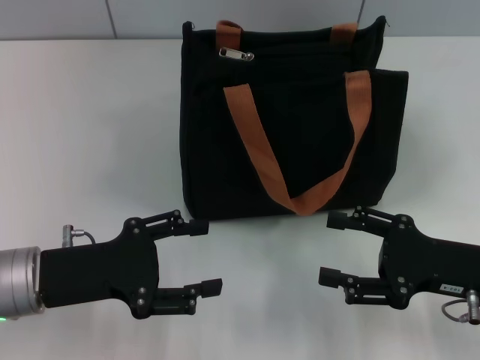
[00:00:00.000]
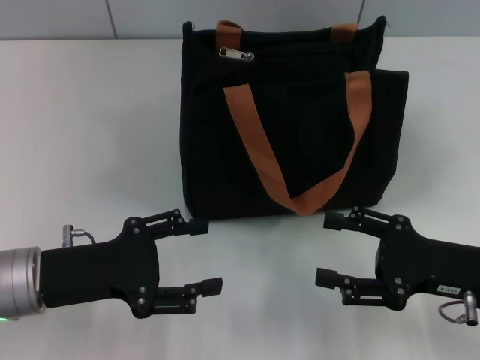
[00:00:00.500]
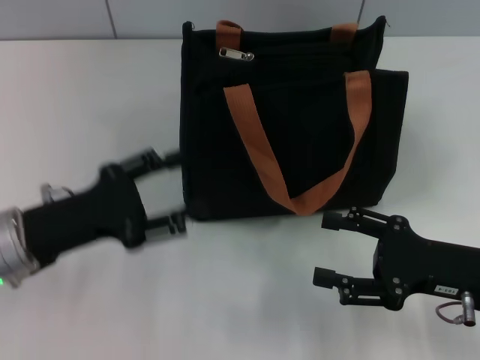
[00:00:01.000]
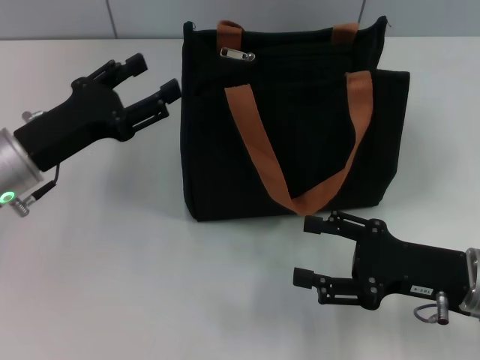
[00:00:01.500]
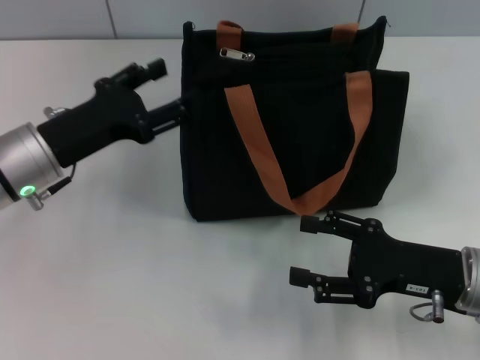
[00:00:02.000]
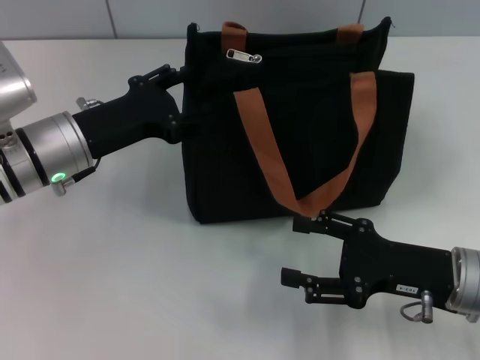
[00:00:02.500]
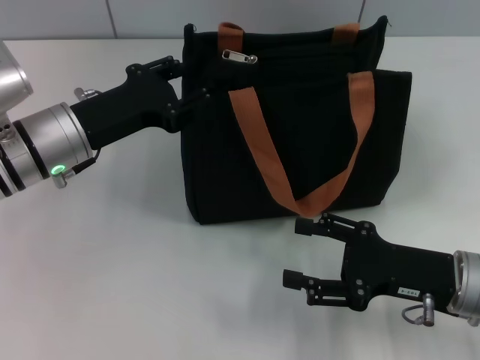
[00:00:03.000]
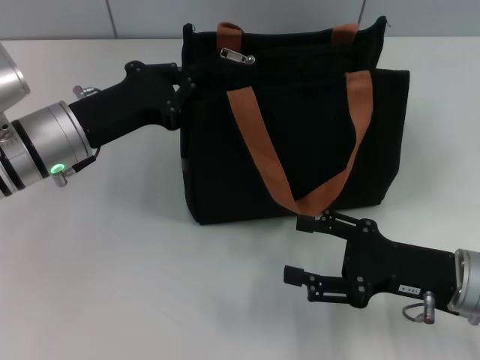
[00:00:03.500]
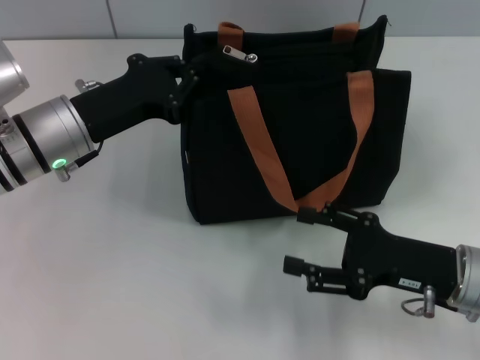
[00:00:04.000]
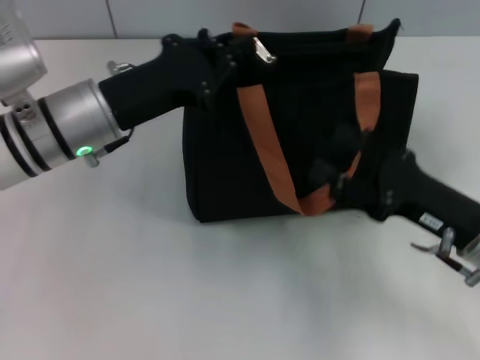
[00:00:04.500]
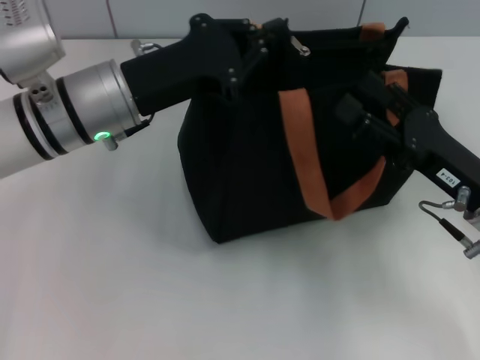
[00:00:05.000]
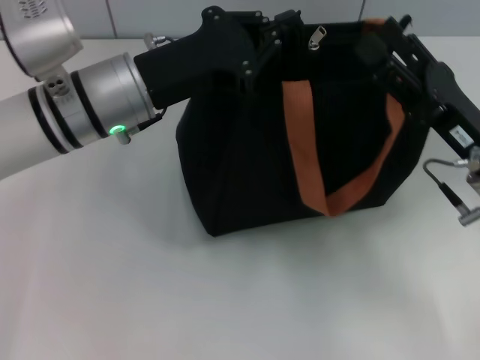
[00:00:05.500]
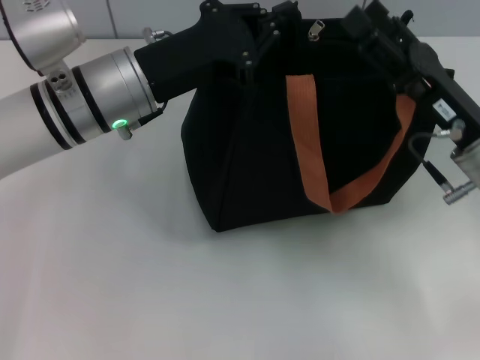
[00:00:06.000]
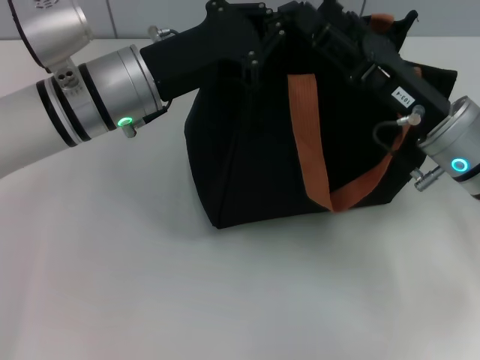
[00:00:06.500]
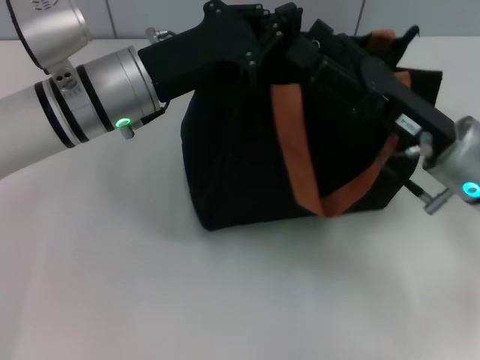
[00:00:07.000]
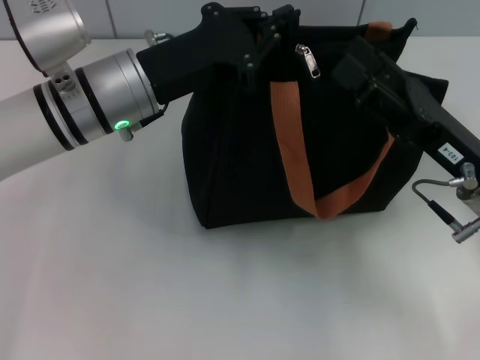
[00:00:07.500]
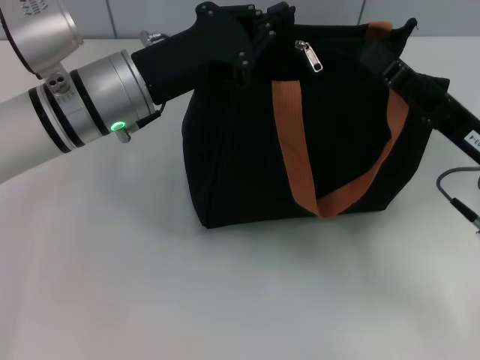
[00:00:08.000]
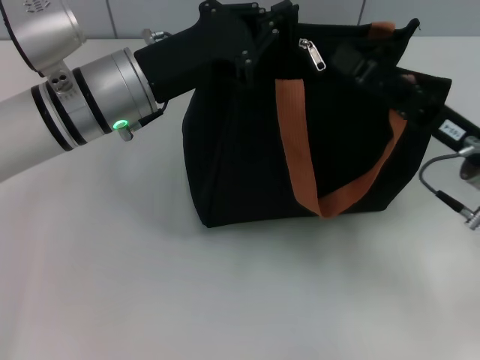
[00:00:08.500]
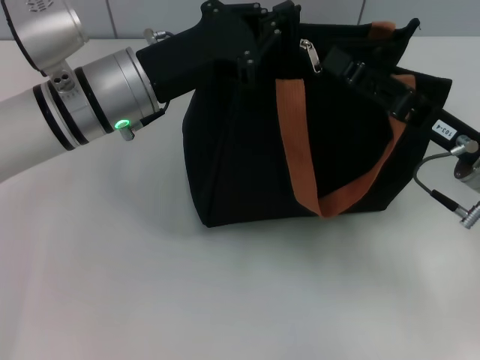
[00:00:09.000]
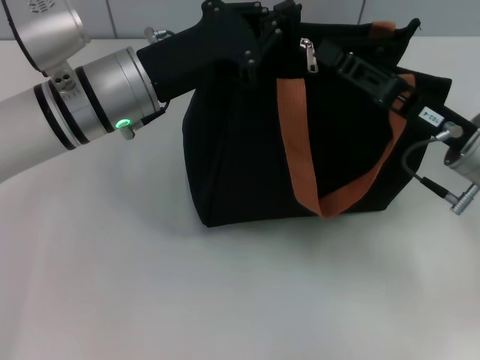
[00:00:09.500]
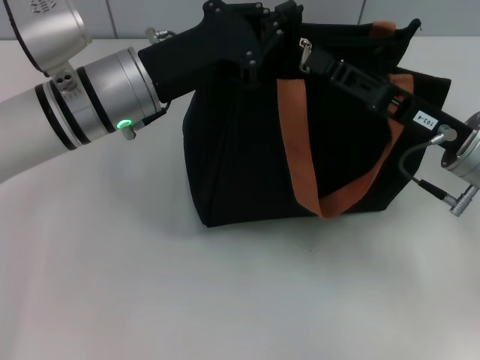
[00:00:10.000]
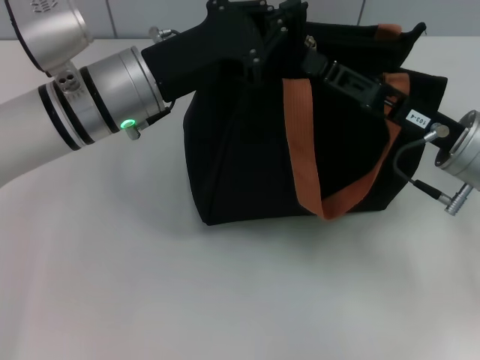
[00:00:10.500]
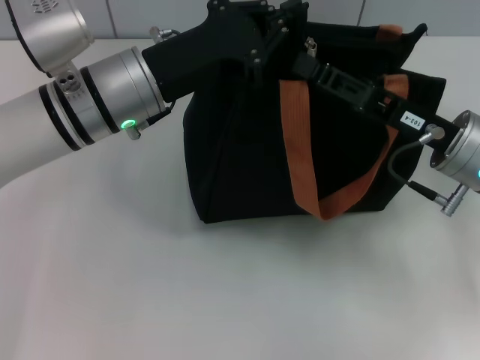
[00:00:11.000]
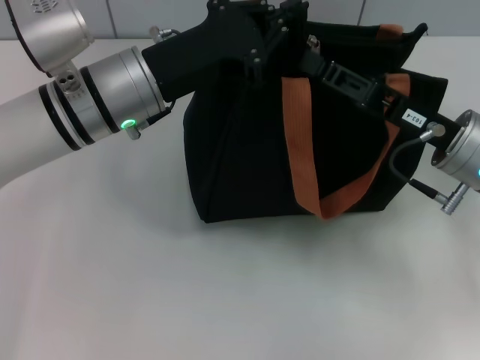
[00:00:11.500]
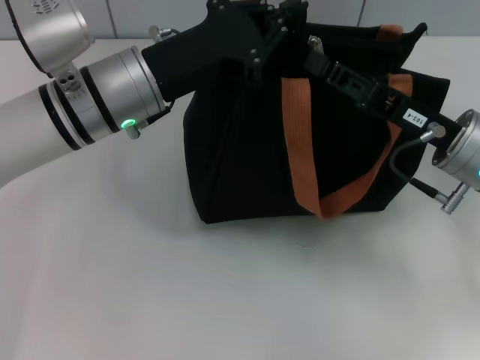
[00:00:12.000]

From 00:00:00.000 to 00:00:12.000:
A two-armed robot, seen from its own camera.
From 00:00:00.000 to 00:00:02.000: The left gripper travels forward by roughly 10 cm.
From 00:00:02.000 to 00:00:04.000: The left gripper closes up.
From 00:00:04.000 to 00:00:06.000: The right gripper shifts some 10 cm forward and upward; the left gripper shifts about 5 cm to the right.
From 00:00:06.000 to 00:00:08.000: The grippers stay close to where they were, moving slightly.
From 00:00:08.000 to 00:00:10.000: The right gripper closes up.
From 00:00:10.000 to 00:00:12.000: Both grippers stay put.

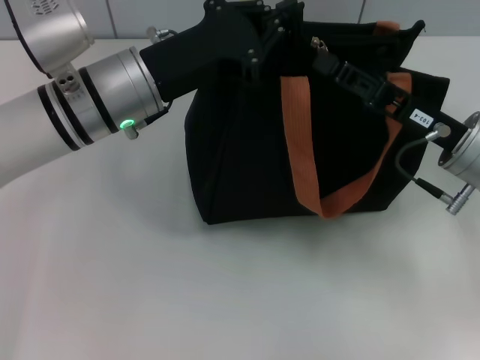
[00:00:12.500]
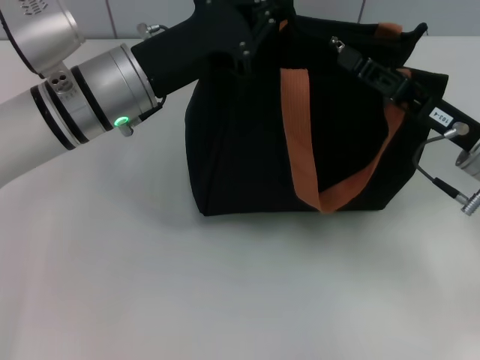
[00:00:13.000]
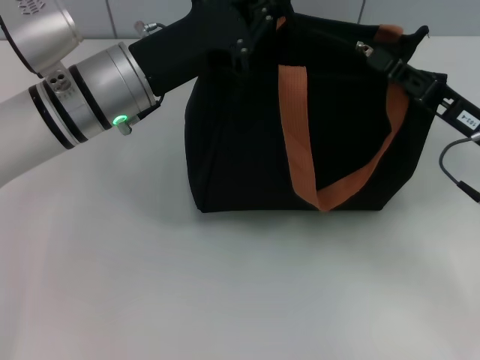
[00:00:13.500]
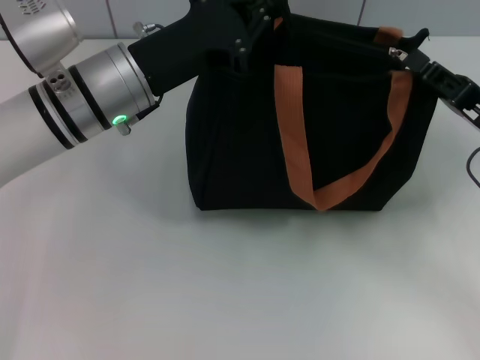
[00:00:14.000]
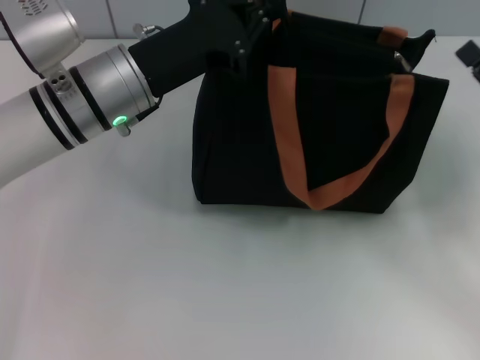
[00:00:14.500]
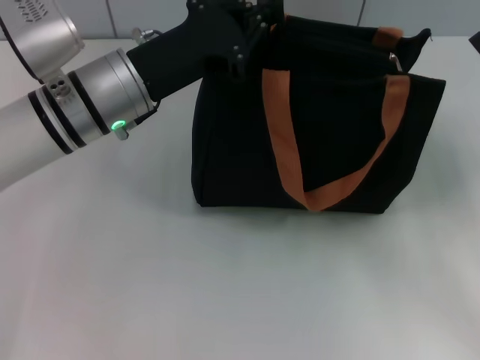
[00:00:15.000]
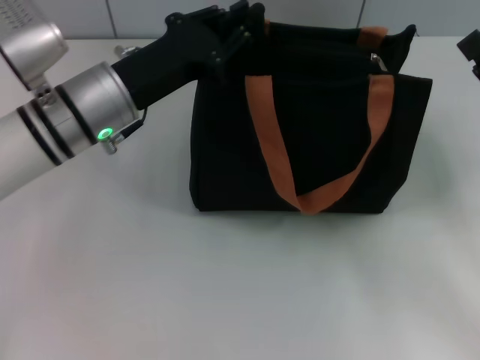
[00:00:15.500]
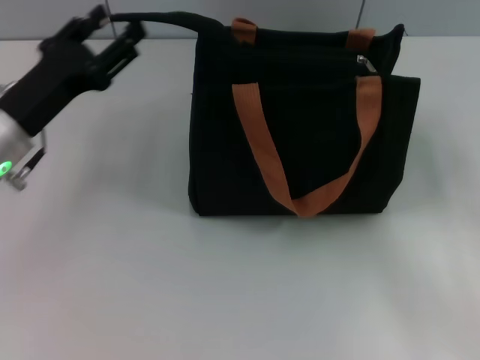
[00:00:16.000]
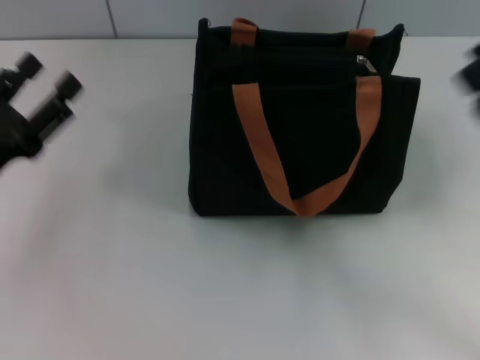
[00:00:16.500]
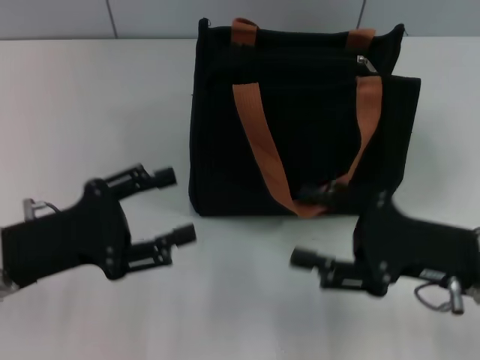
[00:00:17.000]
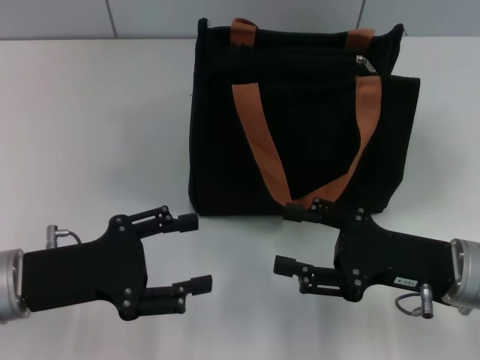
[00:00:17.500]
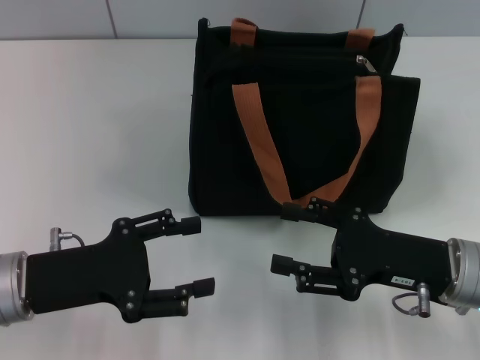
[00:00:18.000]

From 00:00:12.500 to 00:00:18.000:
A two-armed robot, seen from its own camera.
Step, from 00:00:14.500 to 00:00:16.000: Grab the zipper with your left hand.
From 00:00:12.500 to 00:00:14.500: The right gripper shifts some 10 cm to the right.
From 00:00:14.500 to 00:00:16.000: The left gripper shifts approximately 10 cm to the left, and opens its fingers, while the right gripper ends up some 5 cm from where it was, and opens up.
From 00:00:16.000 to 00:00:18.000: The left gripper heads backward, covering about 10 cm. The right gripper heads to the left, covering approximately 10 cm.

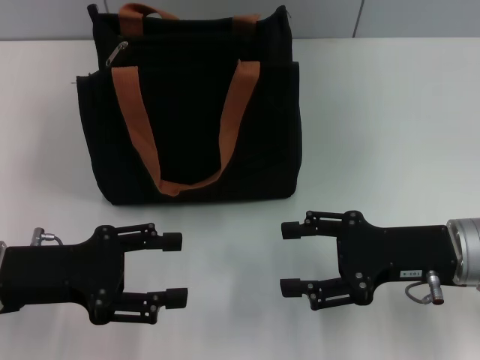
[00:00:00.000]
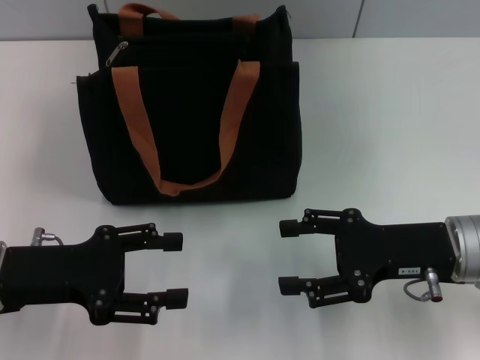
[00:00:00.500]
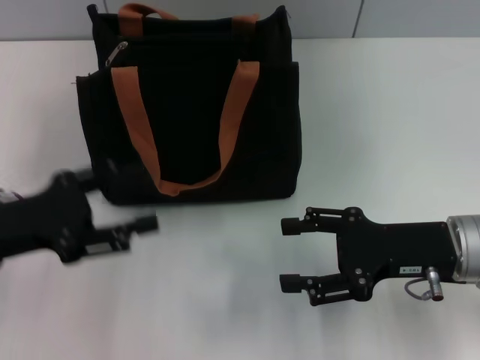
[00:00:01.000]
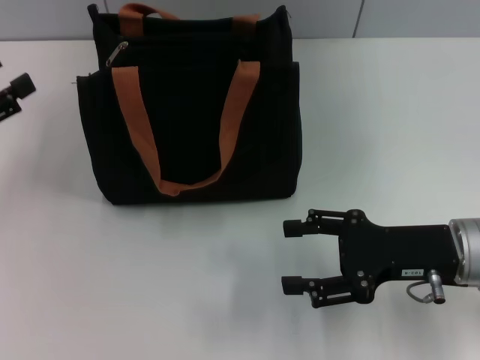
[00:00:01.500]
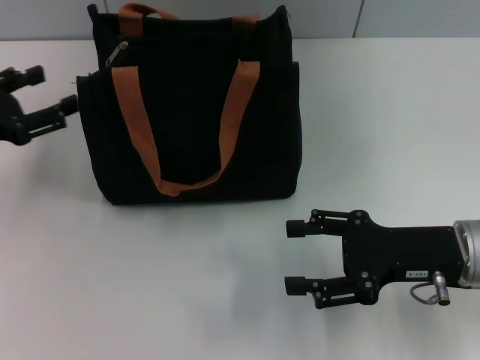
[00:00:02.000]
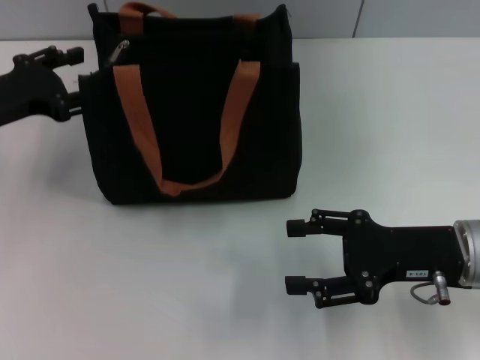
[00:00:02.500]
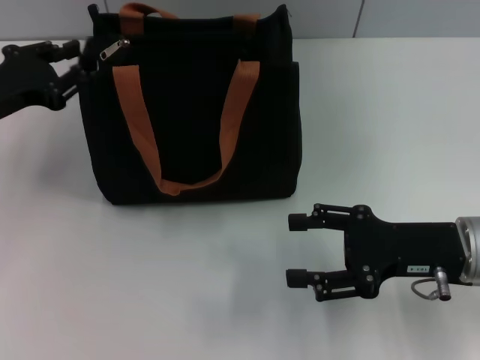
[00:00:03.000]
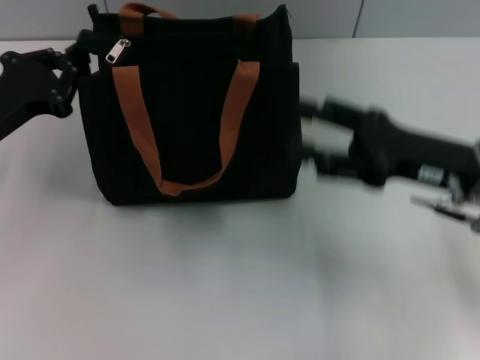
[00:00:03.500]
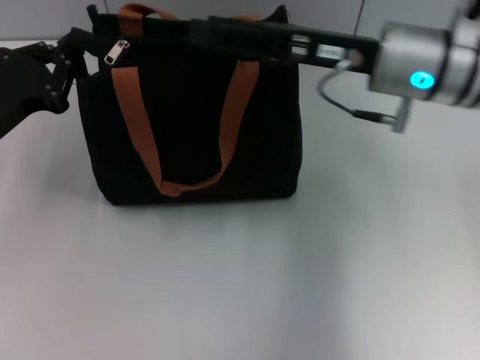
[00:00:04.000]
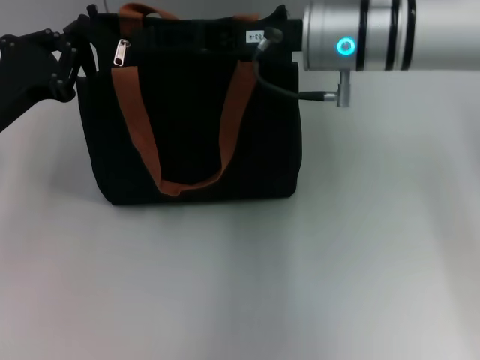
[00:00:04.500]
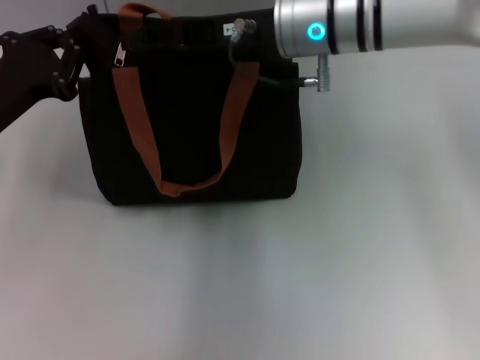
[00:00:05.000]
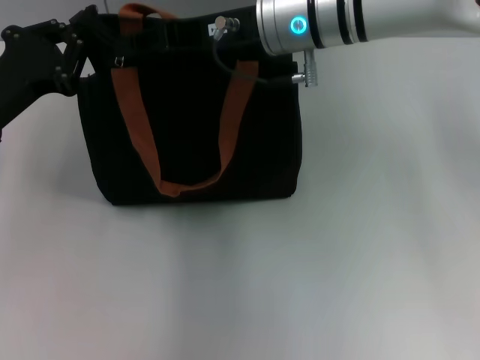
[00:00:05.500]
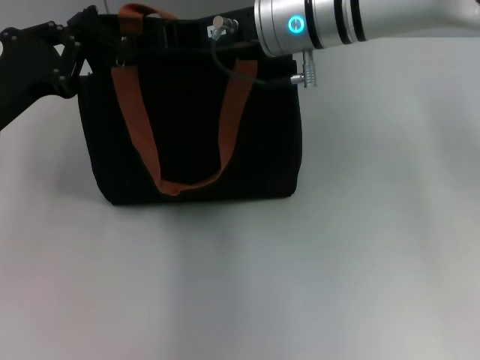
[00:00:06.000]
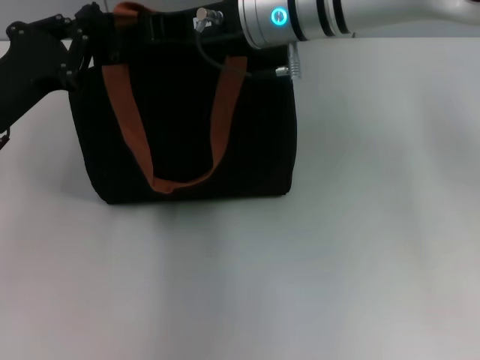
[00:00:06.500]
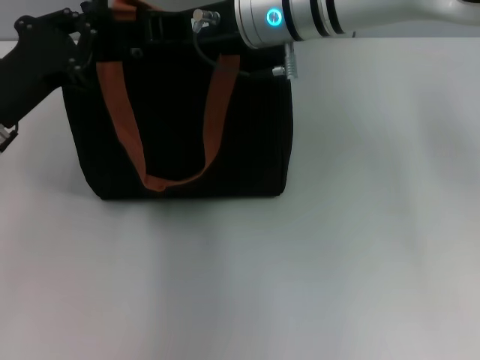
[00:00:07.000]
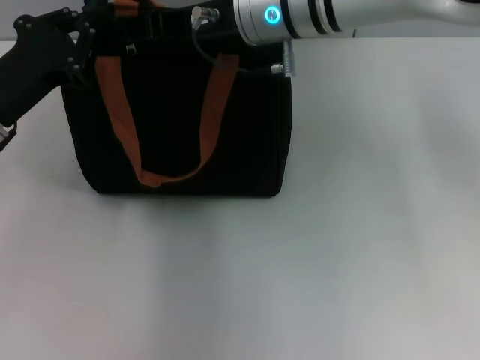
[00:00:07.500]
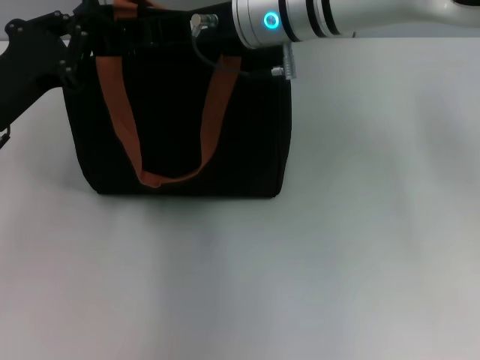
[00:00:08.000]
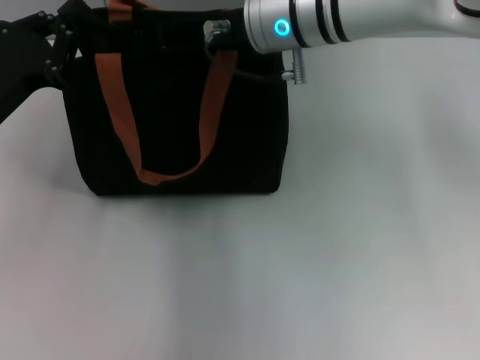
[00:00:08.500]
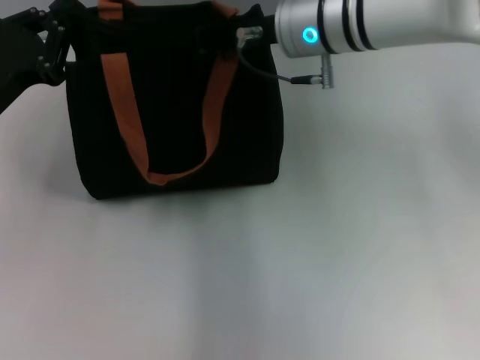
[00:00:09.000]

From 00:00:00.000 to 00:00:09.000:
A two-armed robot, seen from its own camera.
From 00:00:00.000 to 00:00:02.000: The left gripper is displaced to the left and forward by some 10 cm.
From 00:00:02.000 to 00:00:04.500: The left gripper moves to the right, some 5 cm, and closes. Meanwhile the right gripper moves forward, to the left and upward, roughly 25 cm.
From 00:00:04.500 to 00:00:07.000: The right gripper shifts some 5 cm to the left, and closes.
From 00:00:07.000 to 00:00:09.000: The right gripper closes.
